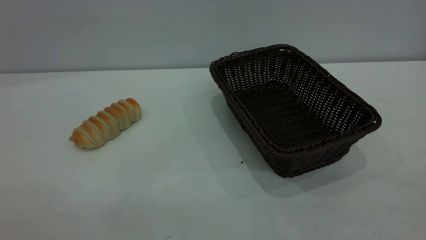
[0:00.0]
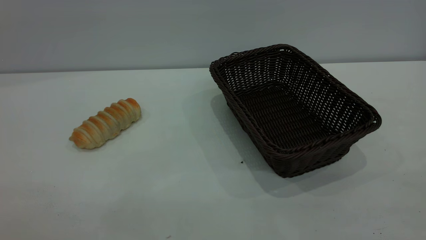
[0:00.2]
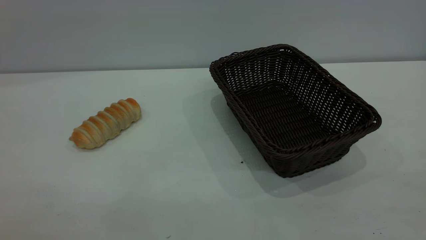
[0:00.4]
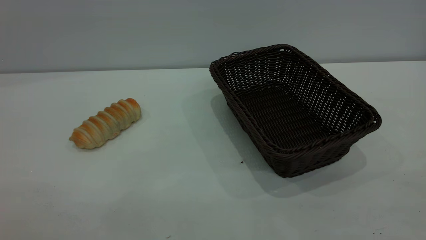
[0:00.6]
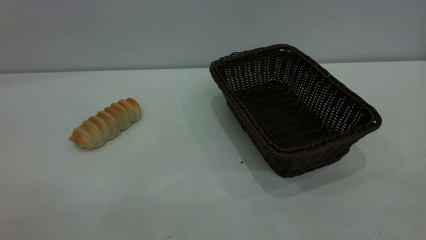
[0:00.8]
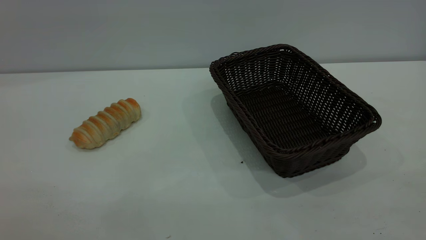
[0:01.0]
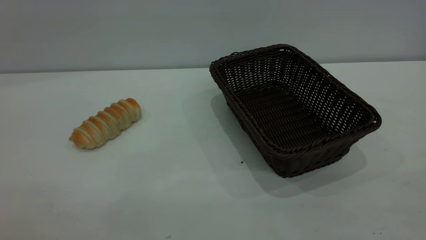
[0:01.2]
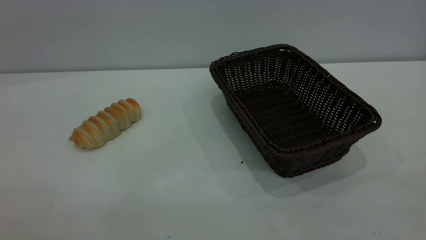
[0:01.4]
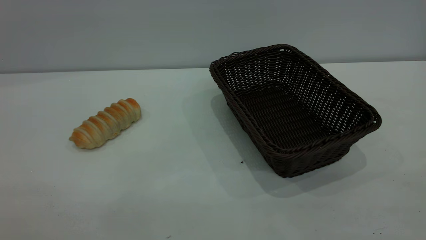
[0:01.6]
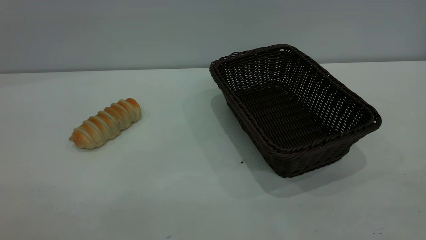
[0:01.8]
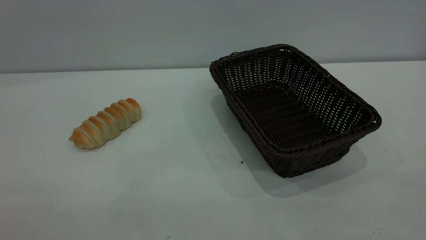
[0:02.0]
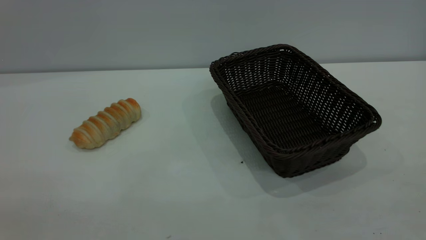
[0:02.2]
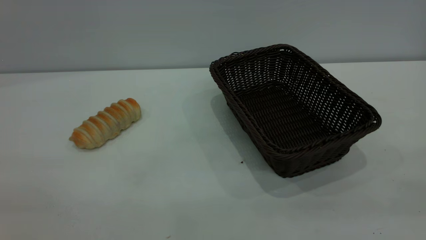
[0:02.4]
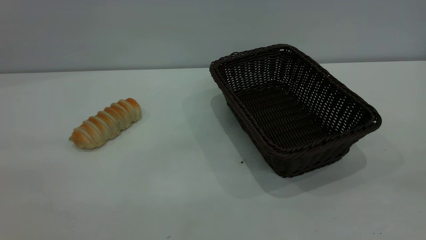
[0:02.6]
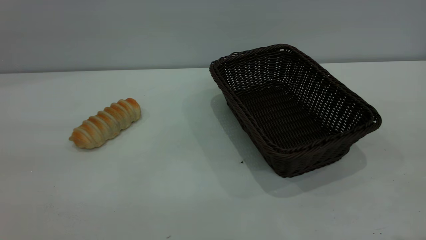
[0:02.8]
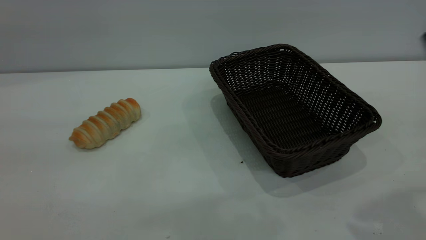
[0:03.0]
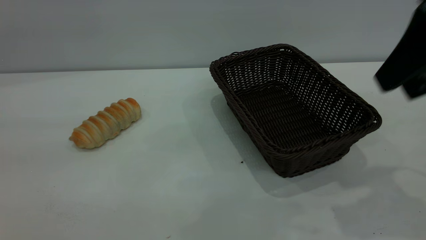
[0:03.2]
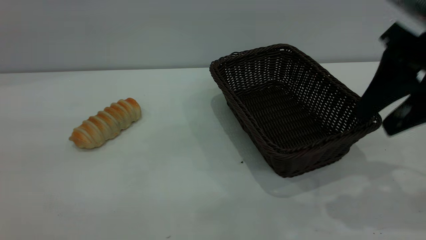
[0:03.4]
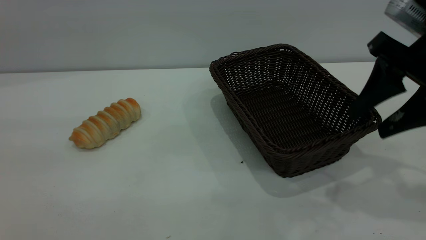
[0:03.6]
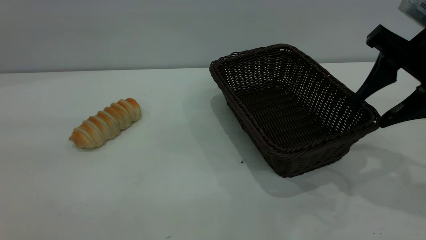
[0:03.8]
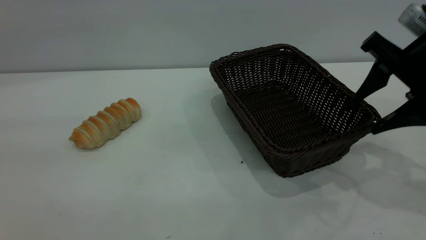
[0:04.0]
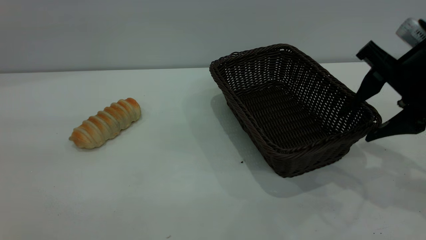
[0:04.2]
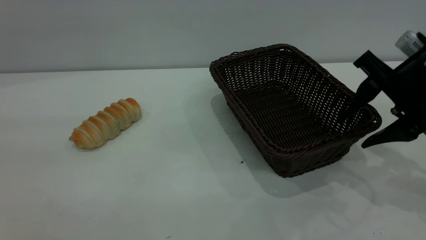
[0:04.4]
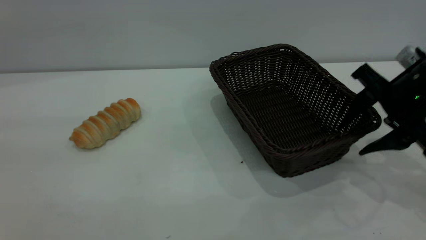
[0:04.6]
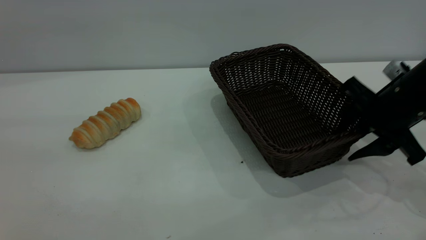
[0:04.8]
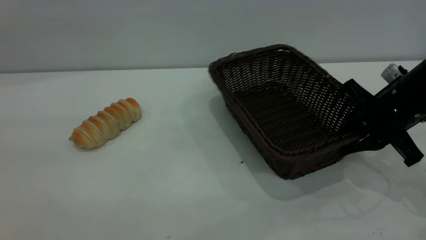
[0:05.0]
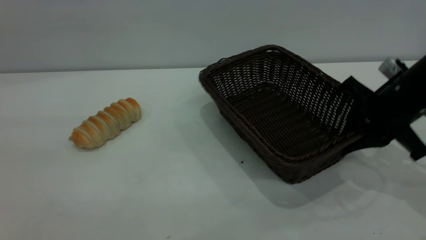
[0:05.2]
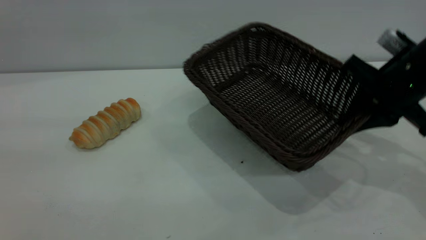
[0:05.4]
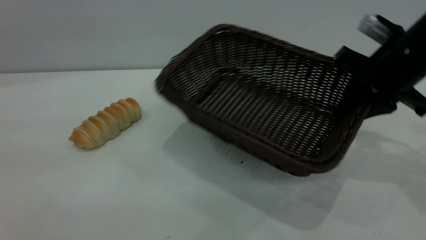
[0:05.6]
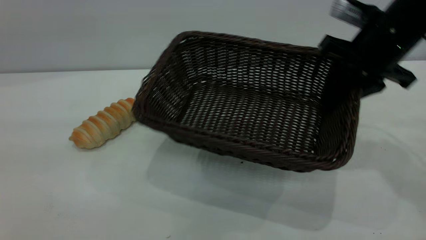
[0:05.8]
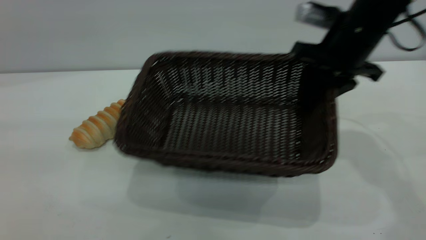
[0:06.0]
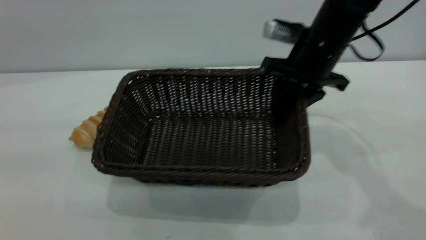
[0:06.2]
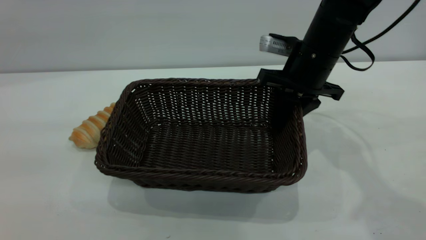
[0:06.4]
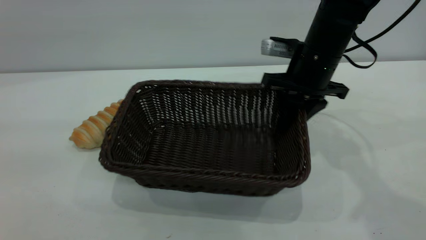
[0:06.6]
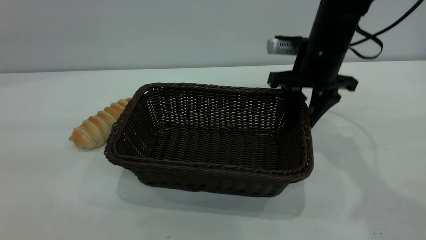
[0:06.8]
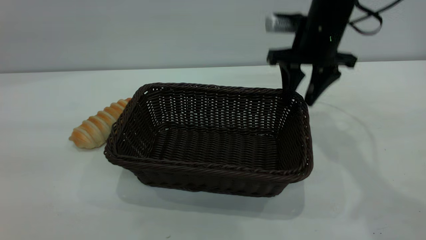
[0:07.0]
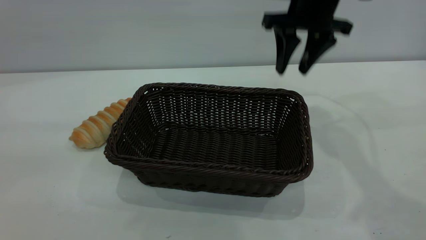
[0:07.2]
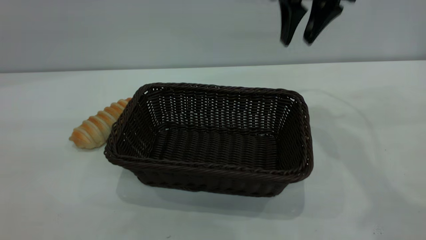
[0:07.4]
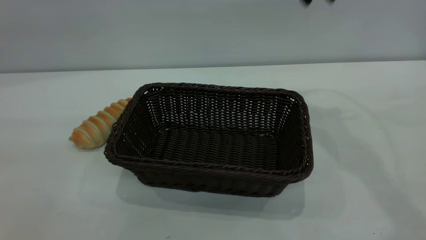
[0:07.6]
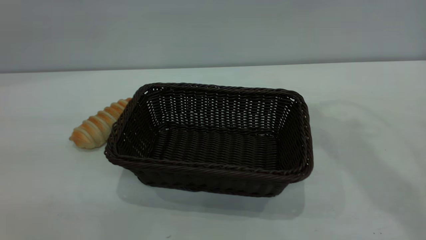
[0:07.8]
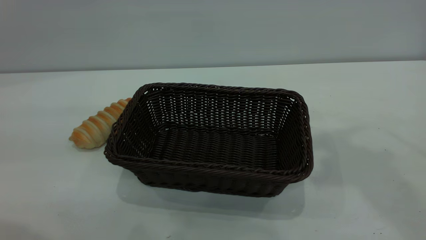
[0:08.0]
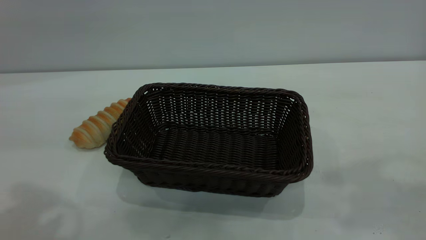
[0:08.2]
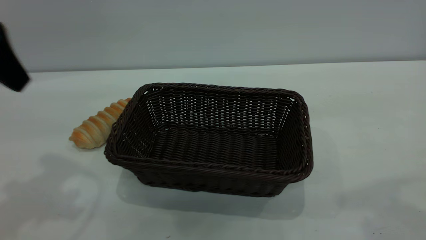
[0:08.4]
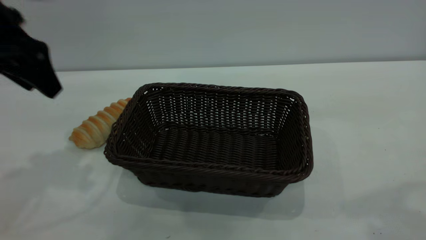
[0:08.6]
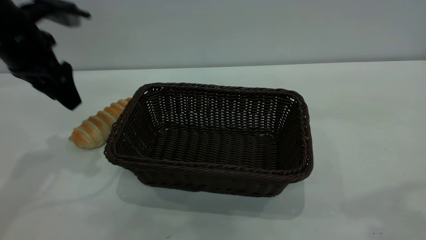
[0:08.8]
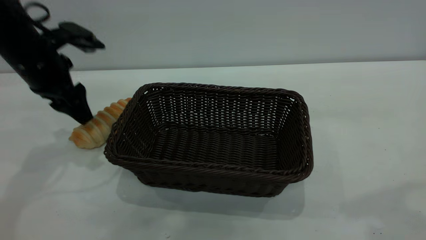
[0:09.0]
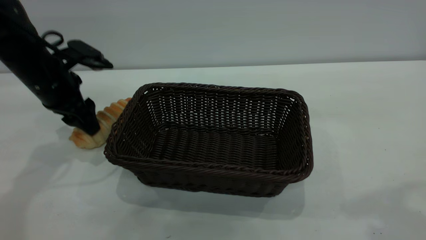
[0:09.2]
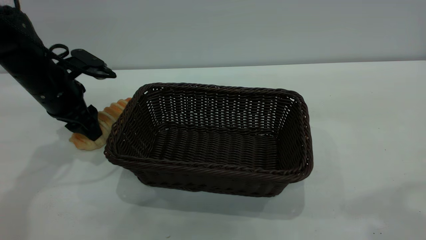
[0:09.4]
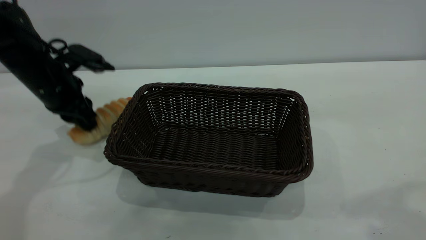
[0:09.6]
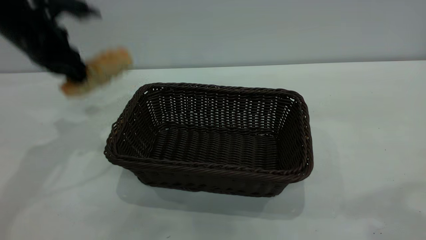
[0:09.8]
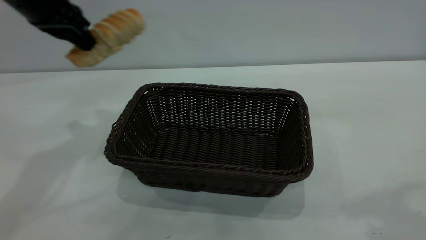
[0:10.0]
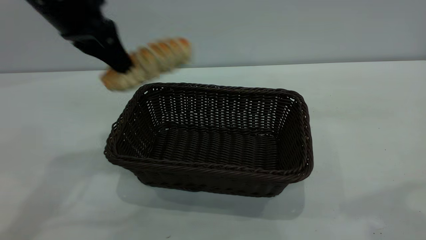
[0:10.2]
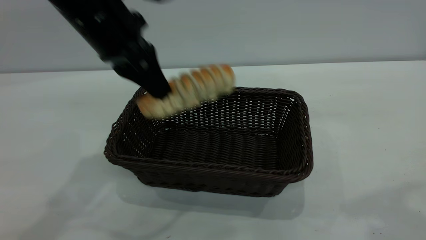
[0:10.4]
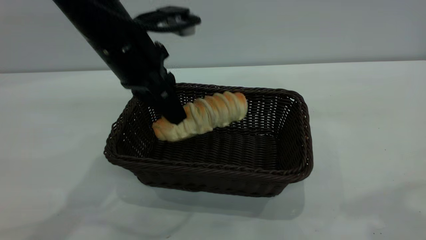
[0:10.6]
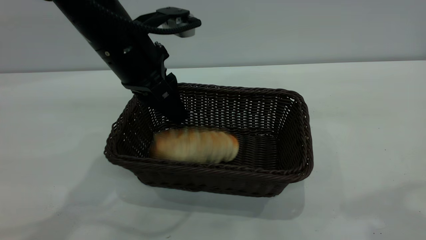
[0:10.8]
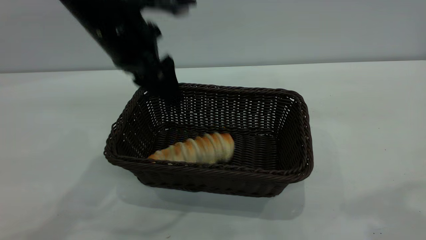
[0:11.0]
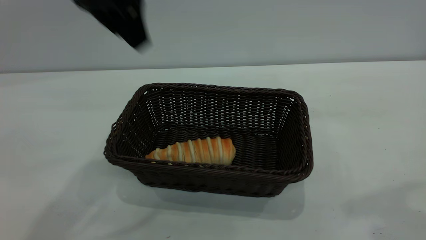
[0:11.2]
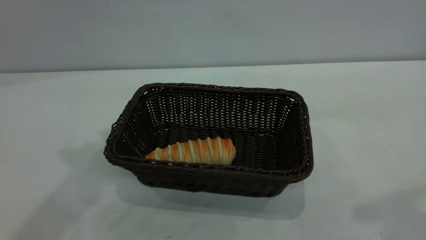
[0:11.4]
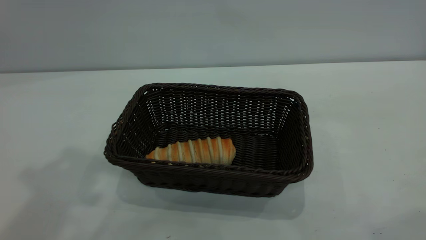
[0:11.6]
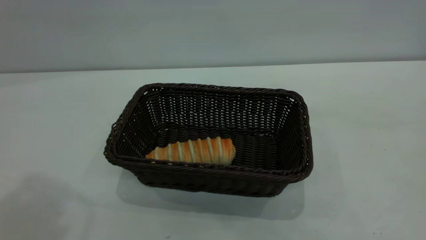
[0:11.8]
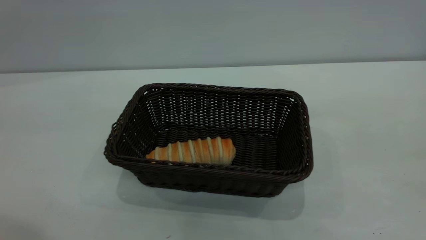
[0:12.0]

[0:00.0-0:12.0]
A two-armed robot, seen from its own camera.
Task of the whole recording: One hand grasps the black basket and places it in the middle of the table, while the other hand picks up the long bread and puts it into the black basket.
Step, 0:00.0 to 0:07.2: Move the basket to the center of view.
Step, 0:10.0 to 0:11.0: place the bread into the basket.
0:00.0 to 0:01.6: Both grippers stay put.
0:03.0 to 0:04.4: The right gripper heads downward and forward, covering roughly 20 cm.
0:04.4 to 0:06.0: The right gripper shifts approximately 10 cm forward and to the left, and closes.
0:06.0 to 0:07.6: The right gripper heads upward, covering roughly 15 cm, and opens its fingers.
0:07.6 to 0:09.0: The left gripper moves forward and downward, some 35 cm.
0:09.0 to 0:10.4: The left gripper swings up and down, roughly 15 cm each way, with 2 reversals, and closes up.
0:10.4 to 0:12.0: The left gripper heads upward, backward and to the left, covering about 30 cm, and opens its fingers; the right gripper heads backward, covering roughly 10 cm.
